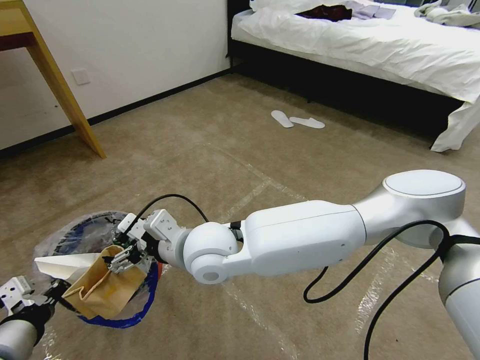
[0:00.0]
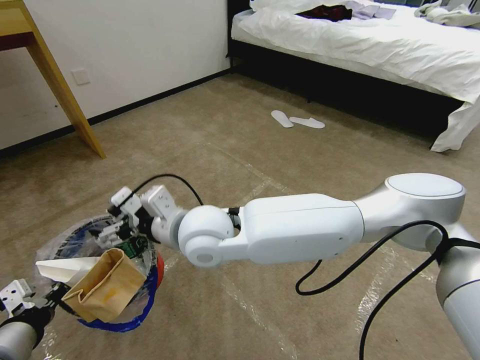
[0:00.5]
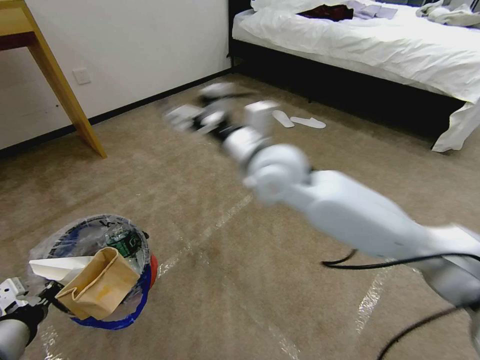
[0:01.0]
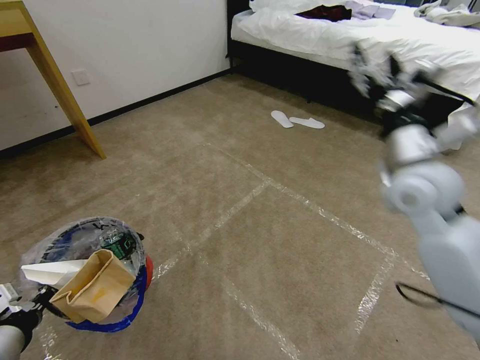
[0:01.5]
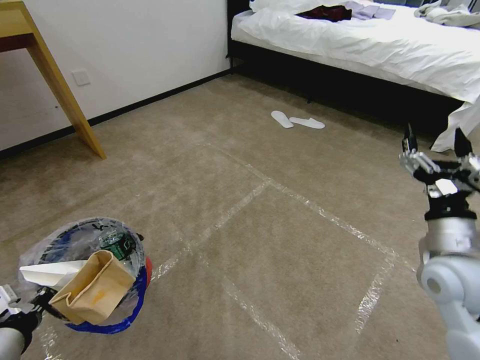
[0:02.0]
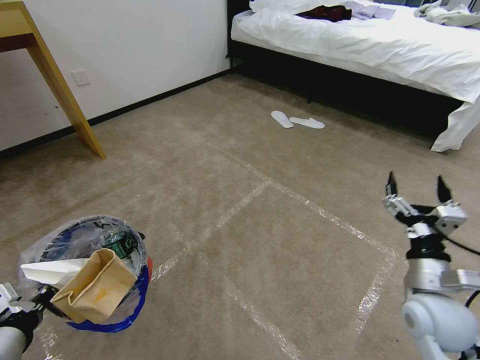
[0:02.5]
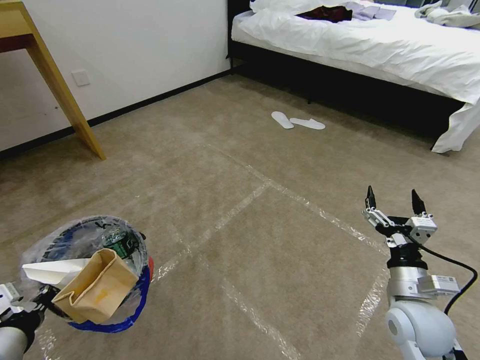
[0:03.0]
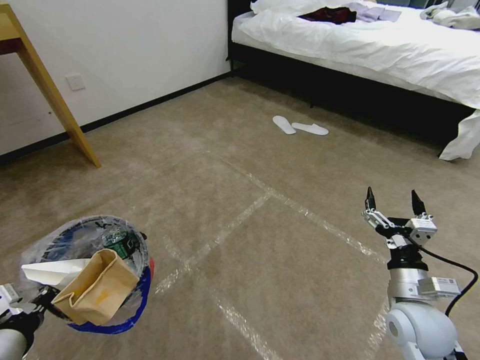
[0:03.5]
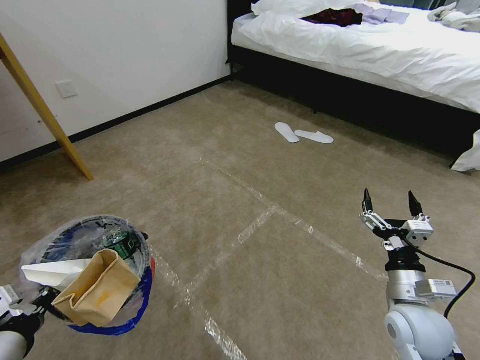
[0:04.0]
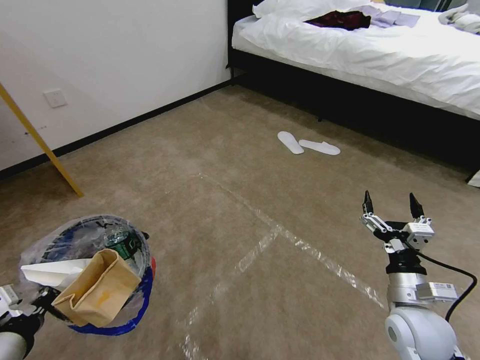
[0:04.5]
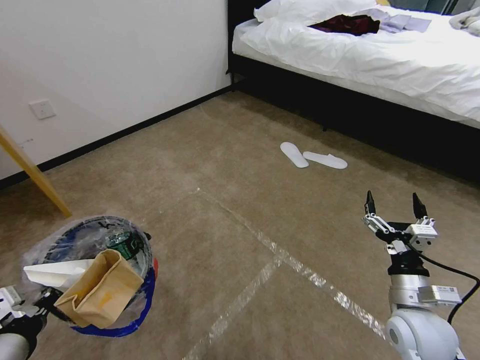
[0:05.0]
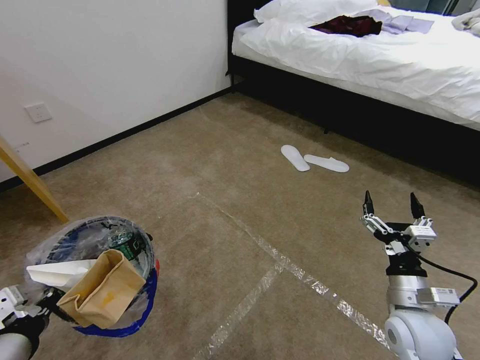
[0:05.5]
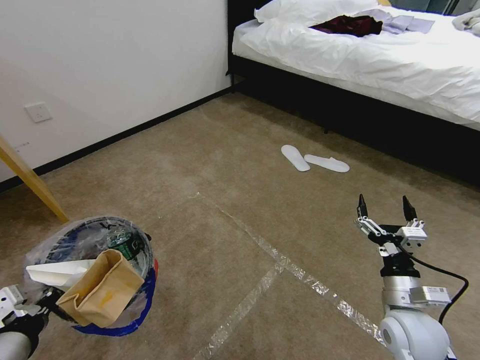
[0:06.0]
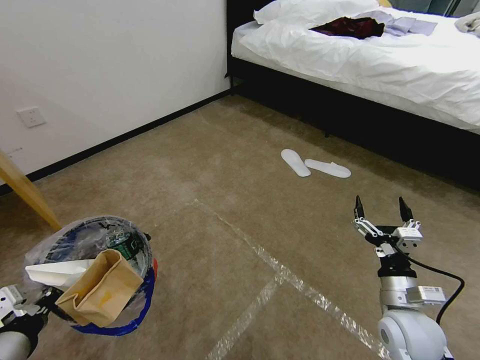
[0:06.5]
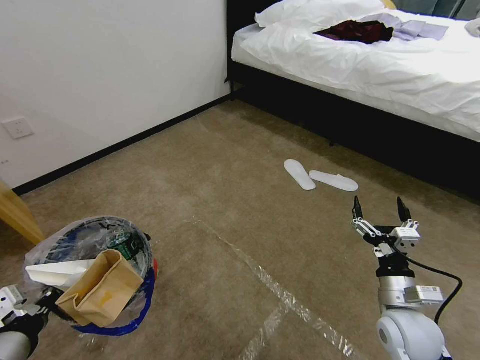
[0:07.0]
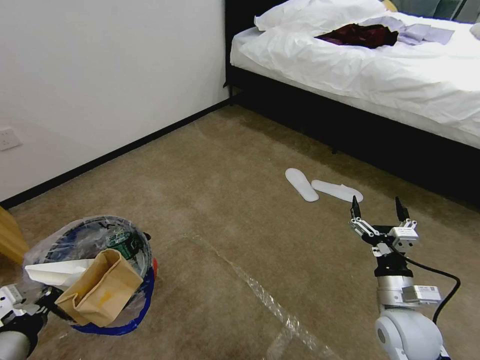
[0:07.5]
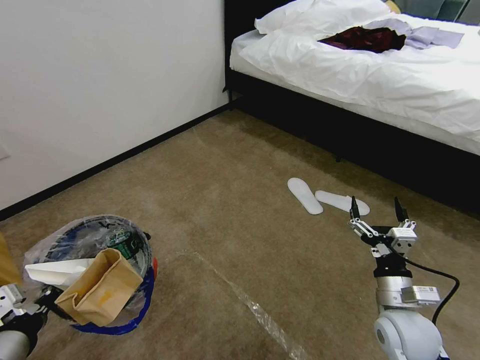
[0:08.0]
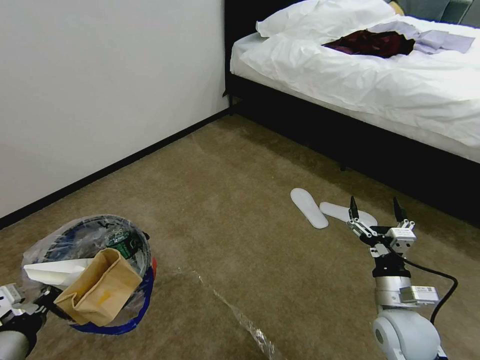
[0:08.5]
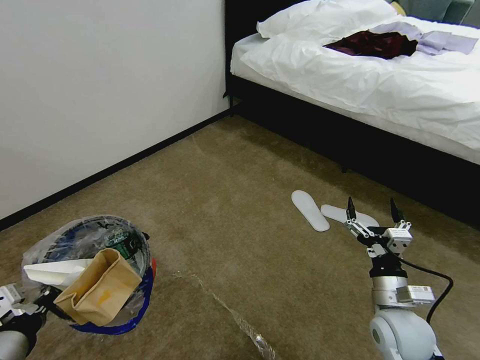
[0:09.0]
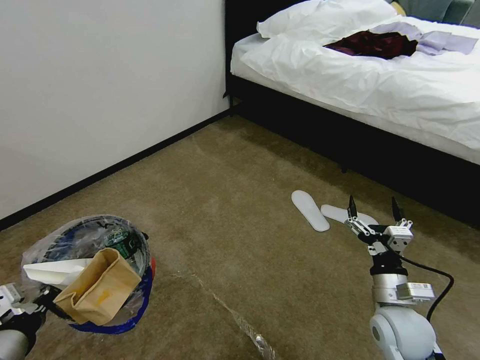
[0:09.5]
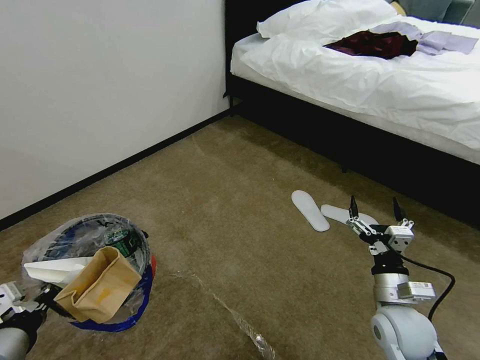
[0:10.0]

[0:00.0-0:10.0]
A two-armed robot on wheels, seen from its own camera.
Task of the whole recording: Pick up the trash bin and place the garbage on the floor into it.
0:00.0 to 0:02.0: The right gripper shifts roughly 40 cm to the right.
0:02.0 to 0:04.0: The right gripper moves downward, some 10 cm.
0:08.0 to 0:10.0: Neither gripper changes place.
